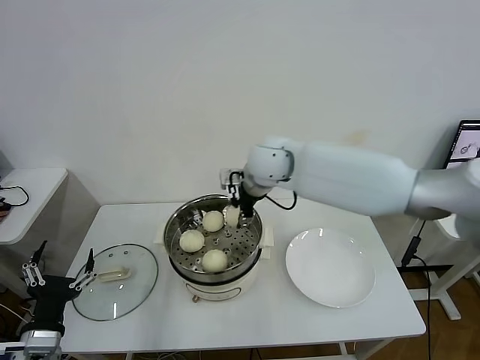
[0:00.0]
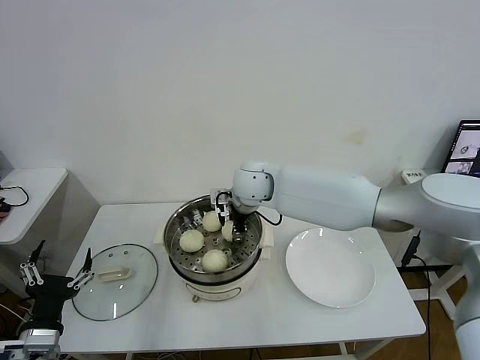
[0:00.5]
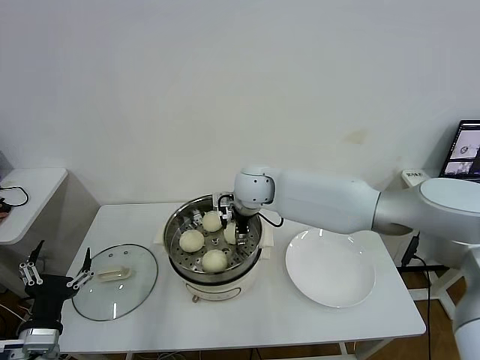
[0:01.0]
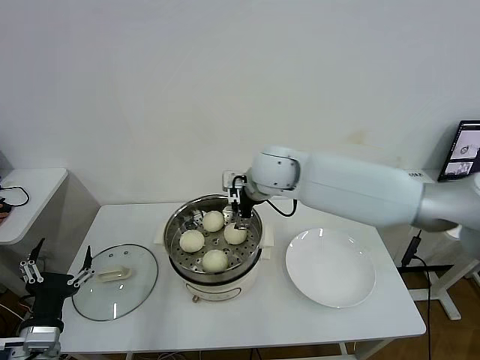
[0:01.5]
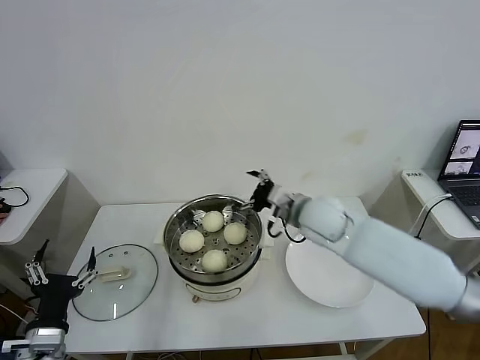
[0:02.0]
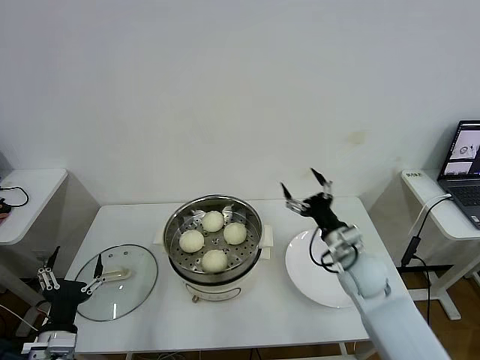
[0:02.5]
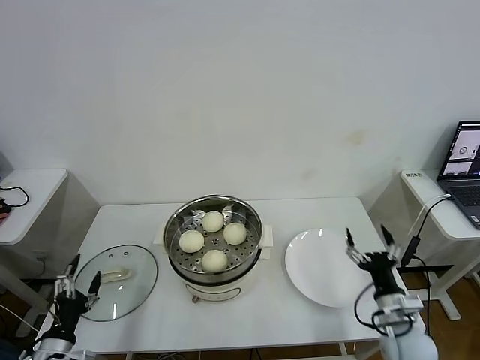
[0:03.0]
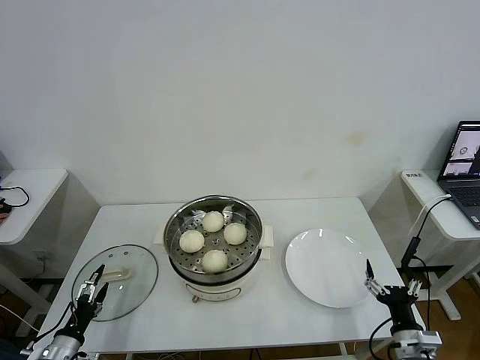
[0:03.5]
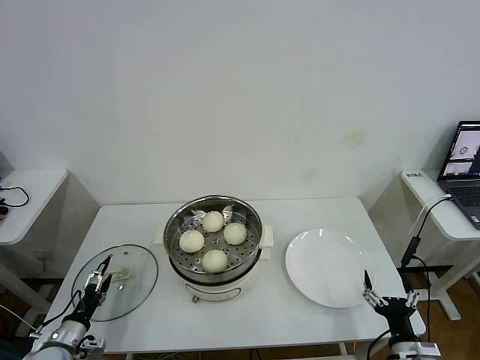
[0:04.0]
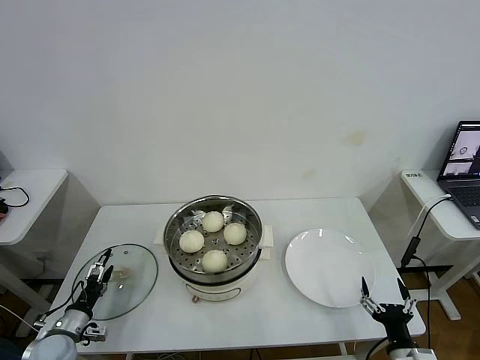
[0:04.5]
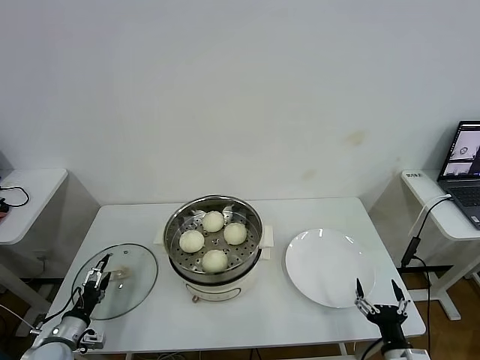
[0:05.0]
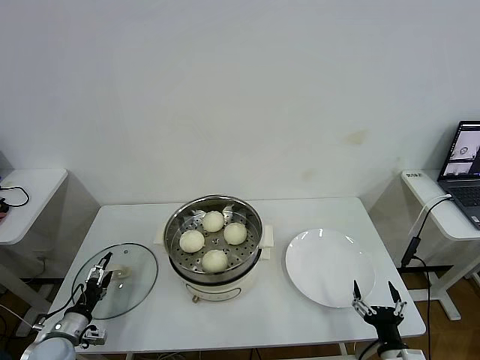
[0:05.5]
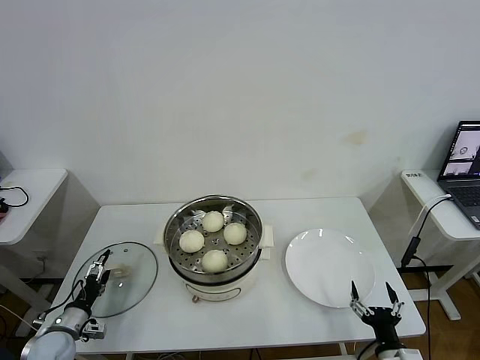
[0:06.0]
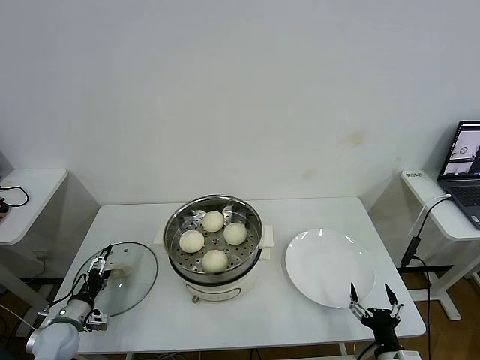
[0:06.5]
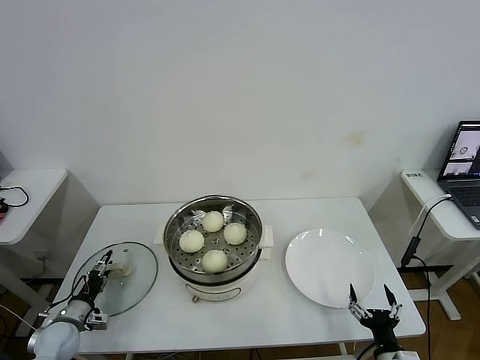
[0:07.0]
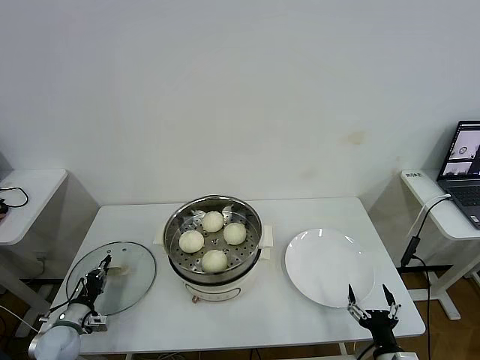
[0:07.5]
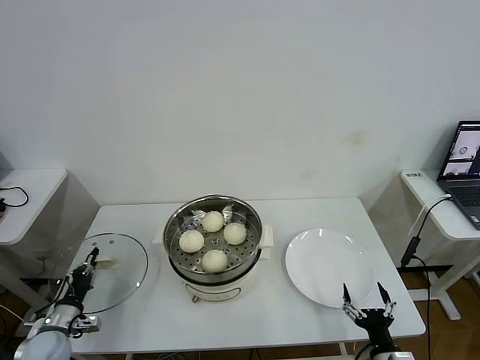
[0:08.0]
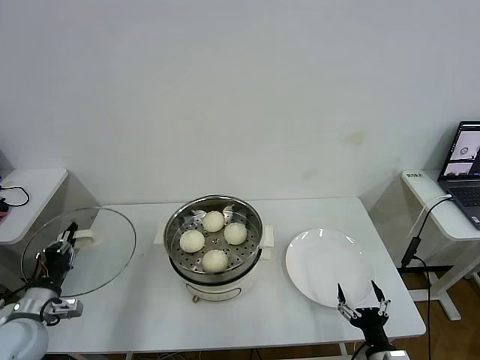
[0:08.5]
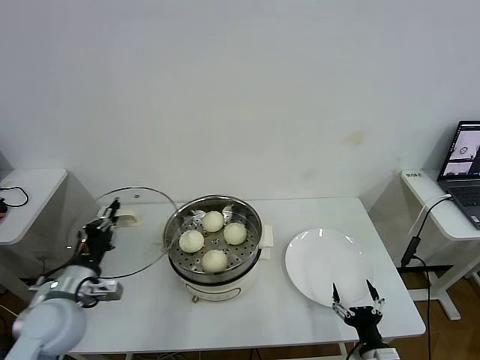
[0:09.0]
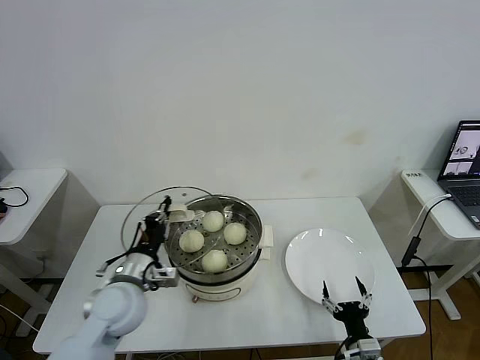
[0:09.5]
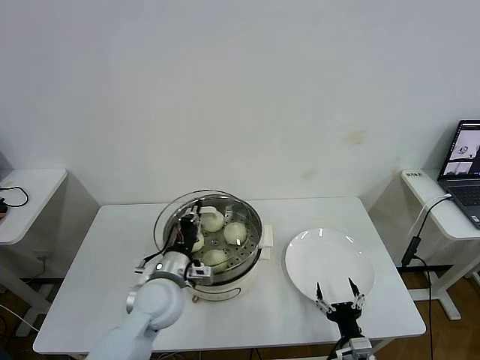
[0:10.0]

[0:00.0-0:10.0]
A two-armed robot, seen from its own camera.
Task of the whole recording: take steamed baozi put them in steamer then cover it.
Step, 0:01.5 to 0:07.5: Grasp the pot lid with left gripper.
0:00.0 to 0:02.0: The right gripper is displaced to the right, downward and backward by approximately 15 cm, and opens.
0:02.0 to 0:04.0: The left gripper shifts roughly 20 cm downward, to the left and forward; the right gripper travels backward, downward and to the right by about 40 cm.
0:04.0 to 0:06.0: There are only small adjustments of the grippers.
0:06.0 to 0:08.0: The left gripper closes its fingers.
0:08.0 to 0:10.0: The left gripper heads to the right and upward, covering about 30 cm. Meanwhile the right gripper moves some 5 cm.

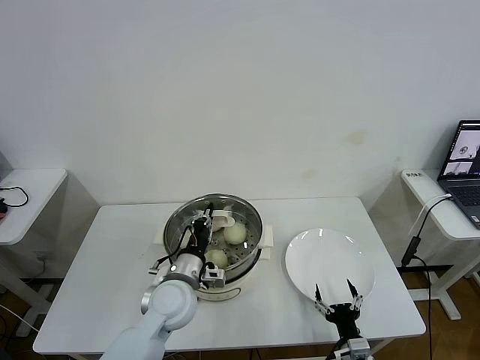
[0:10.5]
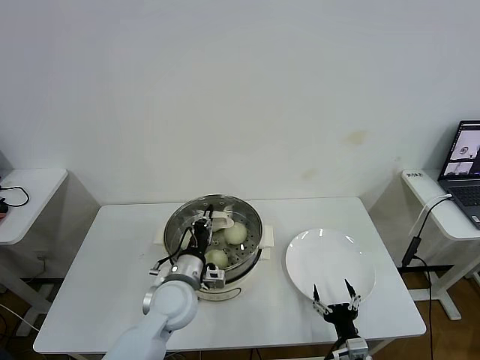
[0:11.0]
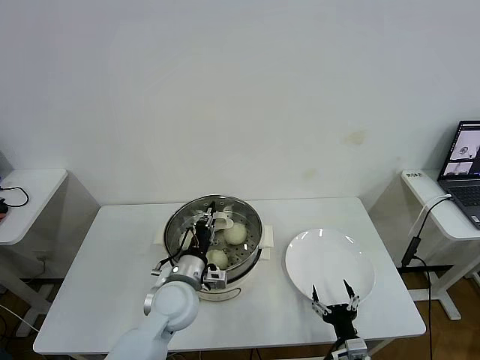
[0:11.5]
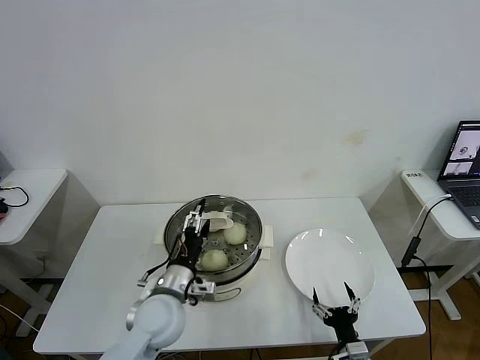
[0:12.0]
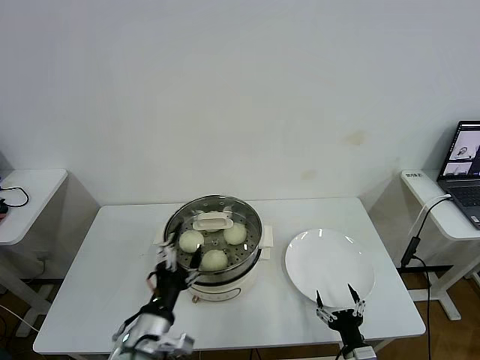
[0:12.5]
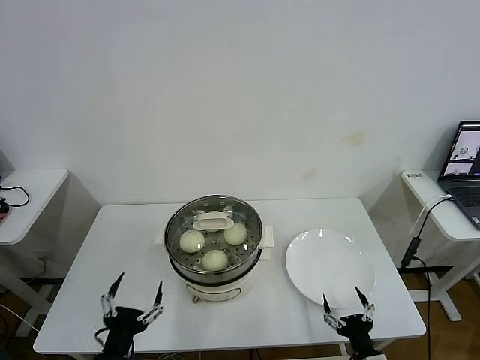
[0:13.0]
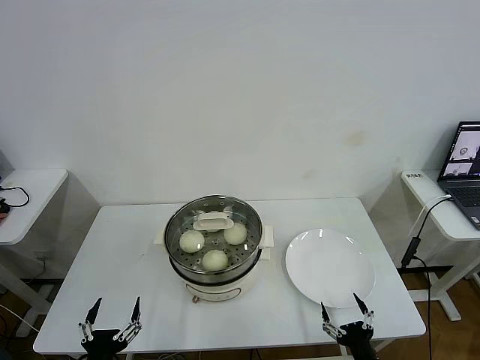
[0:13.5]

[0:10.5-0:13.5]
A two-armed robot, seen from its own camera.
Task of the whole recording: take steamed baozi put them in steamer then cover it.
0:10.5 to 0:12.0: The left gripper opens.
0:12.0 to 0:13.5: The right gripper heads backward, covering approximately 5 cm. Meanwhile the left gripper is displaced backward and to the left by about 25 cm.
